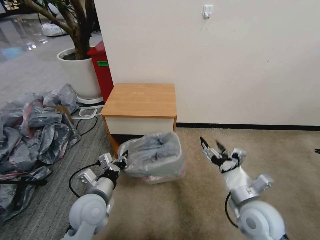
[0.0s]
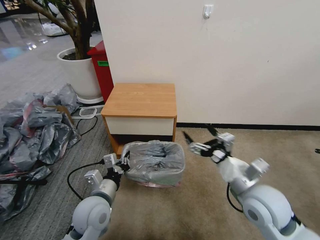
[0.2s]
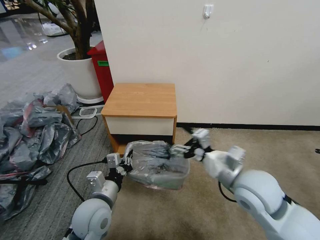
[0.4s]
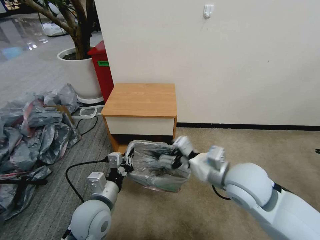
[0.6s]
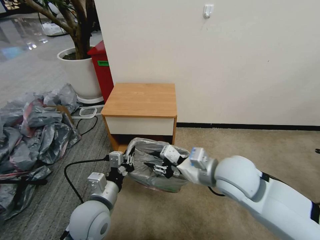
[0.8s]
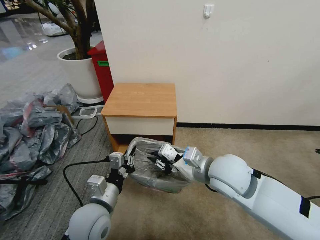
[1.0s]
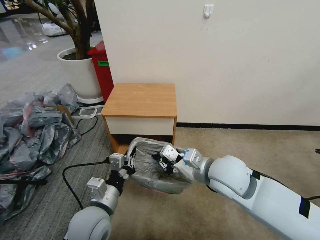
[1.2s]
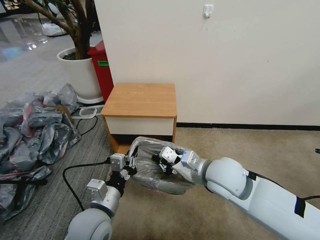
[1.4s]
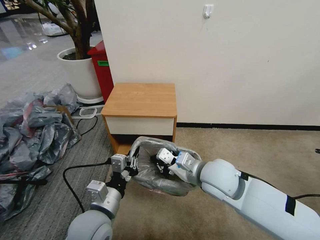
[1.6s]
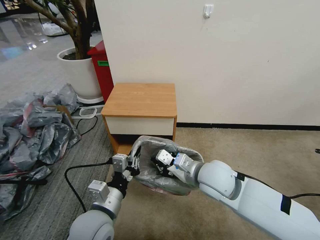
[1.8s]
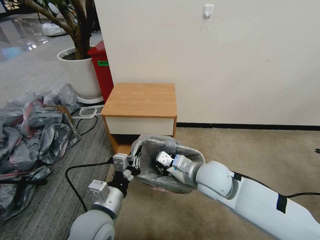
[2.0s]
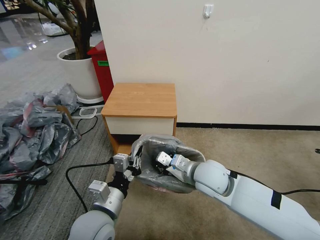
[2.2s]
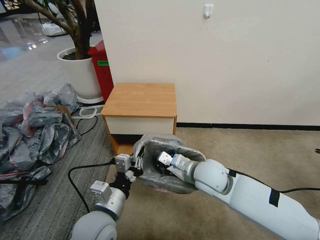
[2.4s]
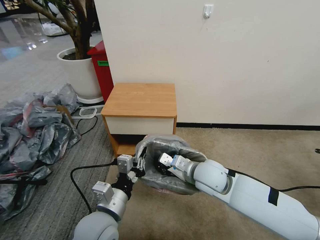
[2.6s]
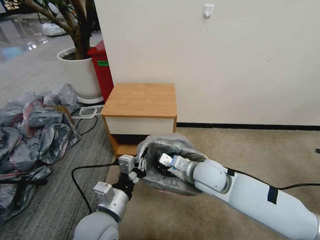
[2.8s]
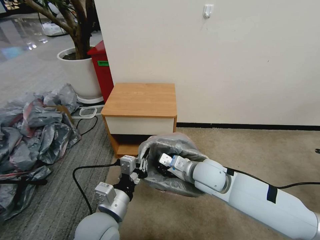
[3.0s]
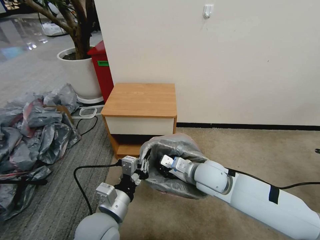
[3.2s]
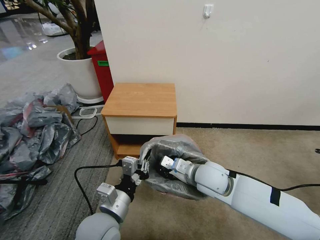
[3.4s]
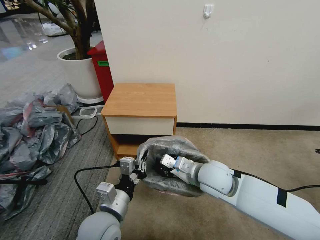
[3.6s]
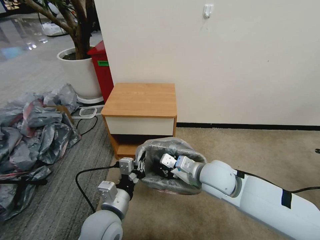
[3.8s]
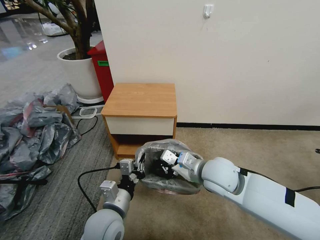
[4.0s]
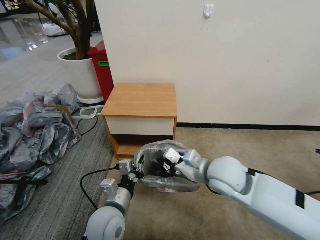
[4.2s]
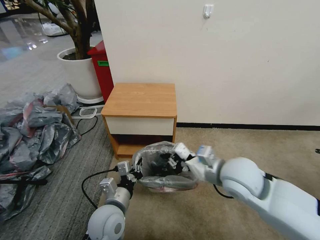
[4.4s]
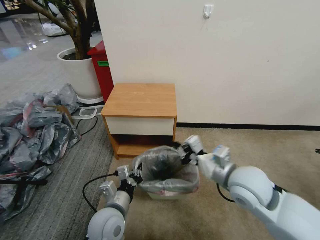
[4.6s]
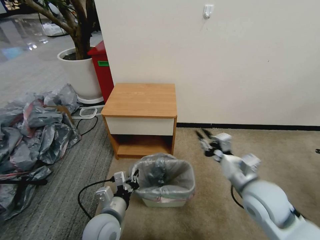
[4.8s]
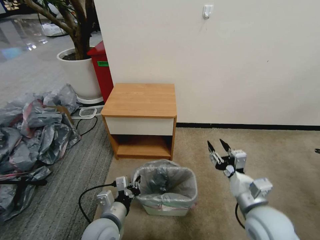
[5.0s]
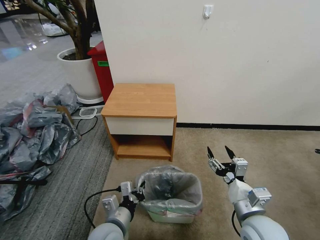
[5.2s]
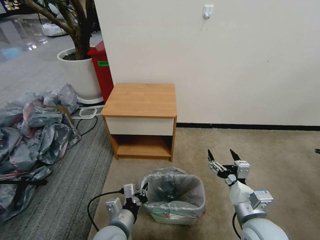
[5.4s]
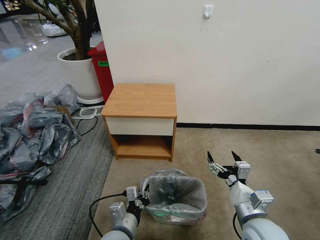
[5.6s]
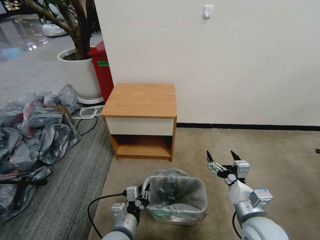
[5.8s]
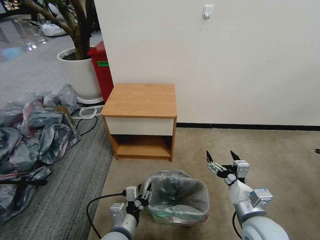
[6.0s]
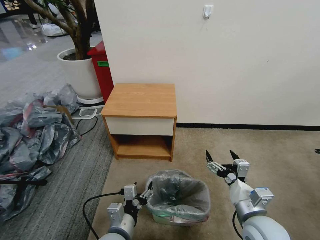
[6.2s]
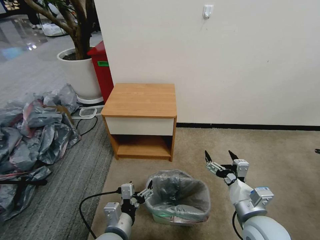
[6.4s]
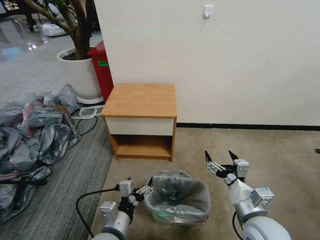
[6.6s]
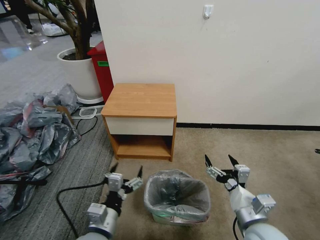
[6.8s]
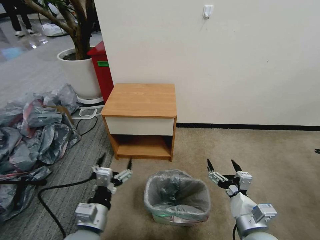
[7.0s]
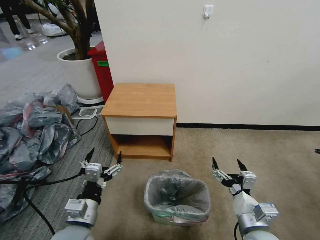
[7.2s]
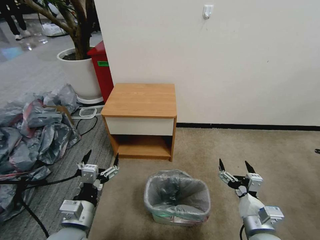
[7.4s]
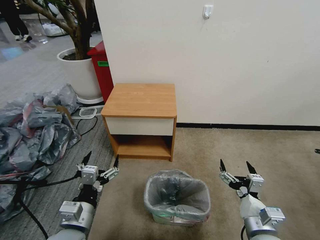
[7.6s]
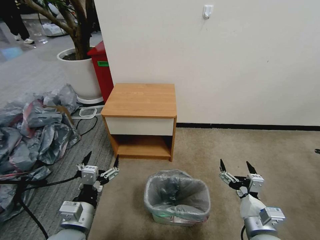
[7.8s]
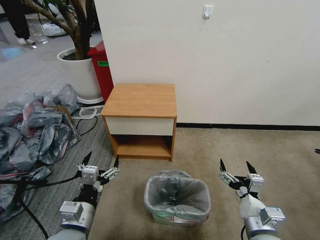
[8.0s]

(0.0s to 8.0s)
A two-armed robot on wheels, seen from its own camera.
Task of the whole recording: Pick up the garbage bag from the table and place it over the trash can.
0.0s - 1.6s: The left gripper heads backward, covering about 5 cm, while the right gripper heads to the left, forward and upward, covering approximately 15 cm, and closes.
1.6s - 3.2s: The right gripper is displaced downward by some 5 cm.
3.2s - 4.8s: The right gripper moves to the right and backward, roughly 15 cm. The left gripper heads downward, covering roughly 5 cm.
4.8s - 6.4s: The right gripper travels backward and downward by about 10 cm, and opens up, while the left gripper moves roughly 5 cm, and opens.
6.4s - 8.0s: The right gripper changes place by about 5 cm. The left gripper is displaced to the left and upward by about 10 cm.

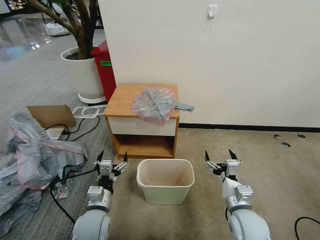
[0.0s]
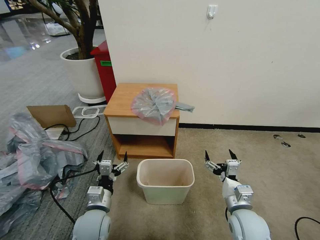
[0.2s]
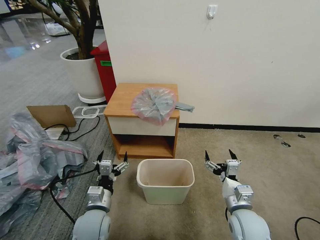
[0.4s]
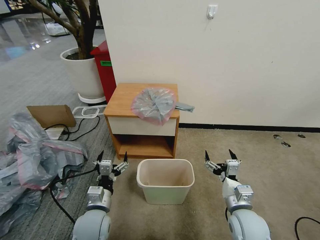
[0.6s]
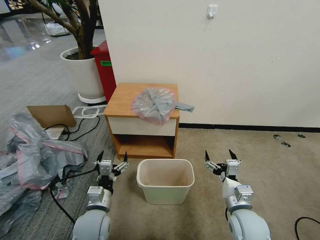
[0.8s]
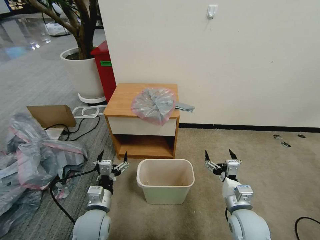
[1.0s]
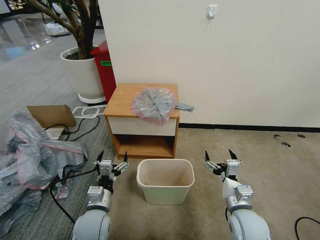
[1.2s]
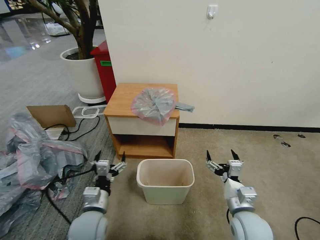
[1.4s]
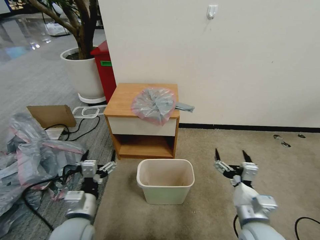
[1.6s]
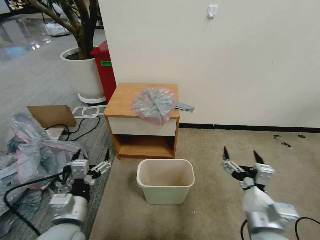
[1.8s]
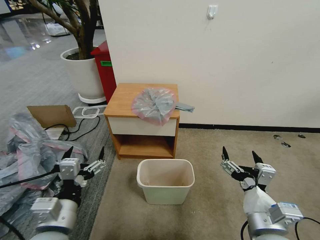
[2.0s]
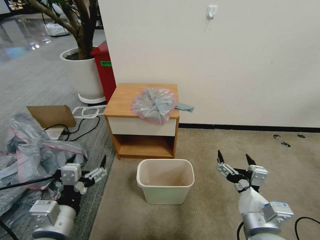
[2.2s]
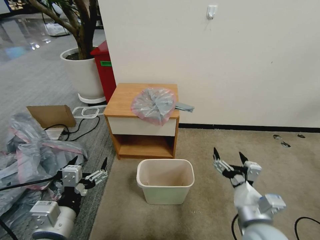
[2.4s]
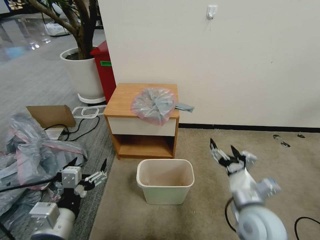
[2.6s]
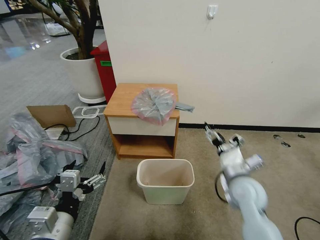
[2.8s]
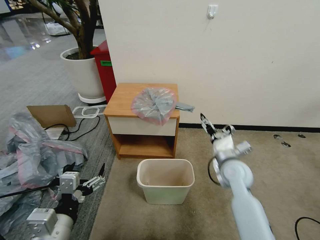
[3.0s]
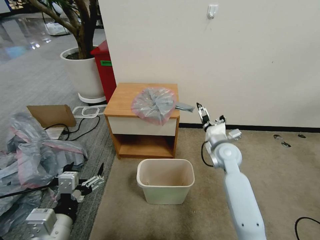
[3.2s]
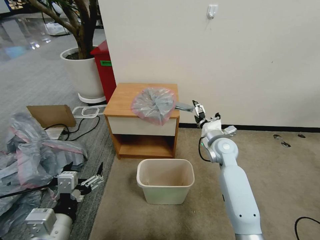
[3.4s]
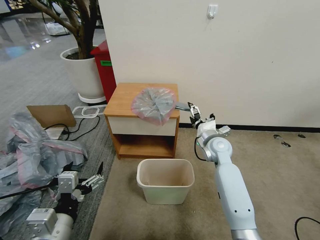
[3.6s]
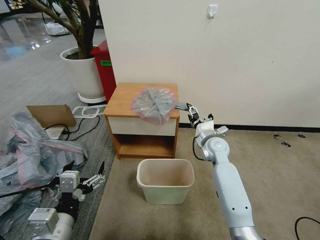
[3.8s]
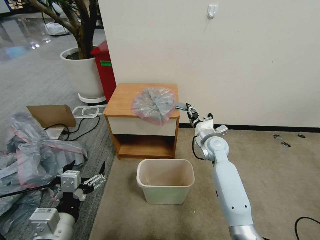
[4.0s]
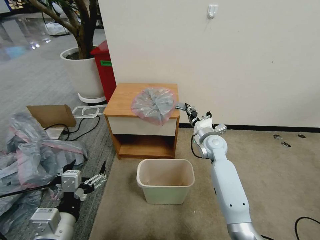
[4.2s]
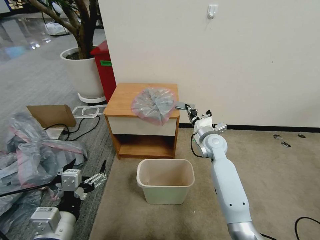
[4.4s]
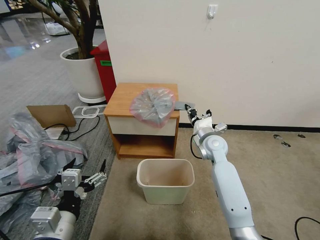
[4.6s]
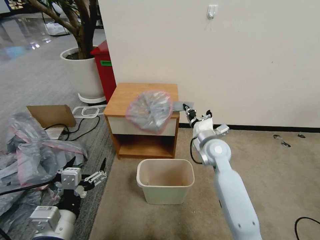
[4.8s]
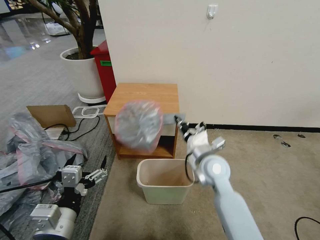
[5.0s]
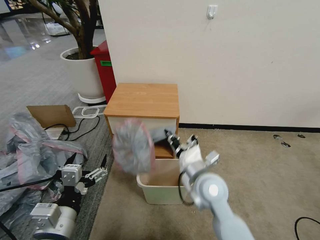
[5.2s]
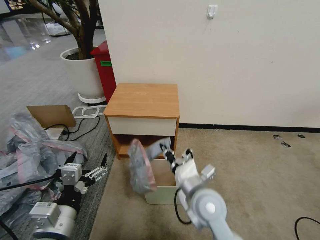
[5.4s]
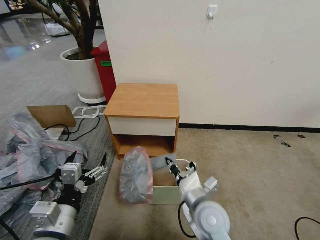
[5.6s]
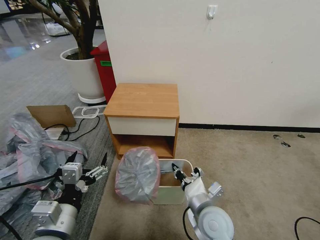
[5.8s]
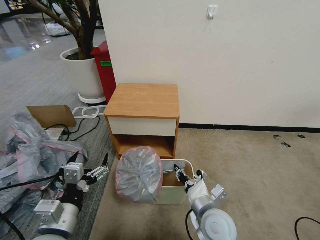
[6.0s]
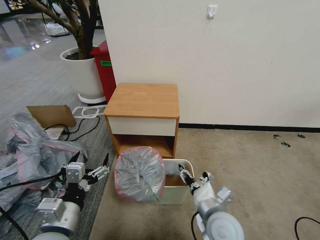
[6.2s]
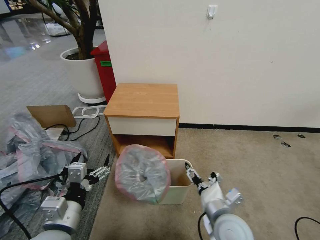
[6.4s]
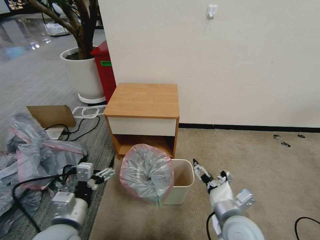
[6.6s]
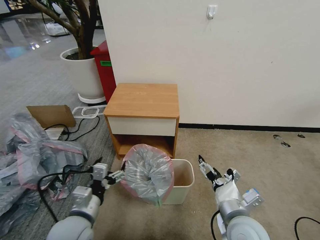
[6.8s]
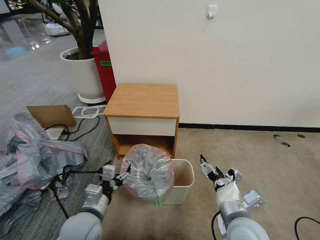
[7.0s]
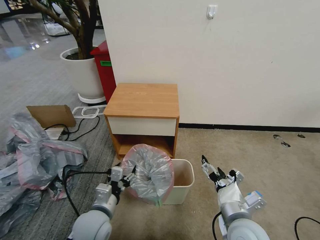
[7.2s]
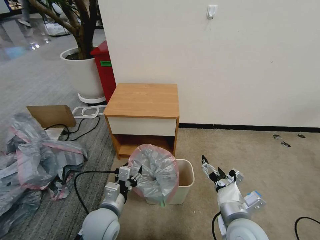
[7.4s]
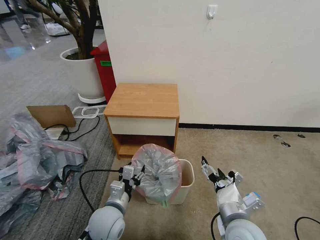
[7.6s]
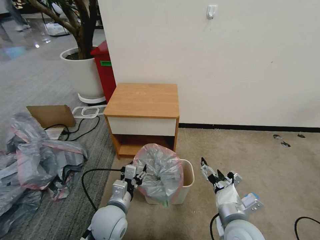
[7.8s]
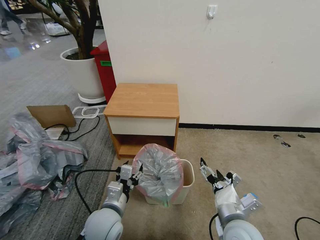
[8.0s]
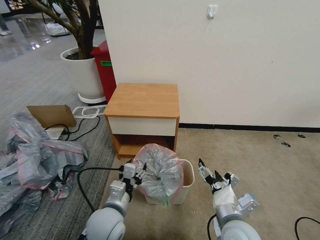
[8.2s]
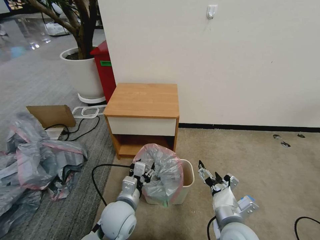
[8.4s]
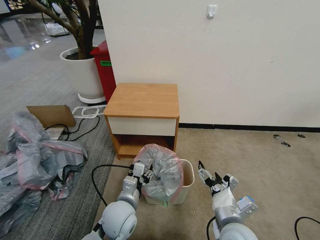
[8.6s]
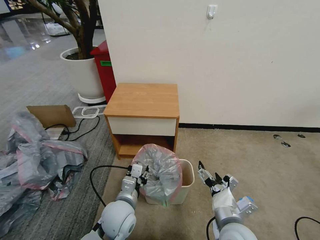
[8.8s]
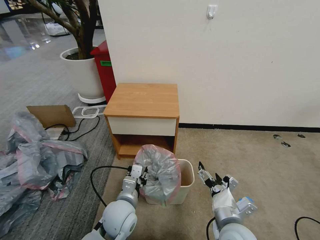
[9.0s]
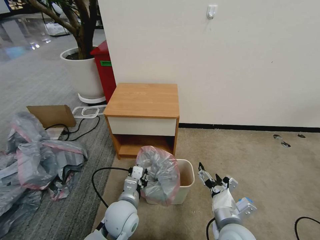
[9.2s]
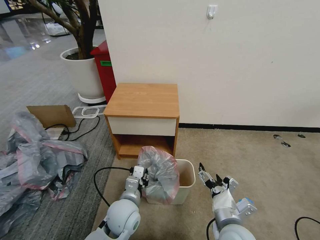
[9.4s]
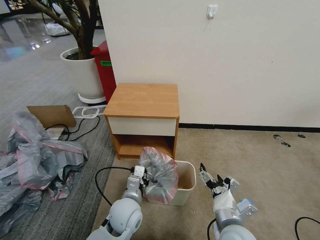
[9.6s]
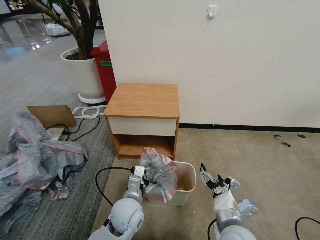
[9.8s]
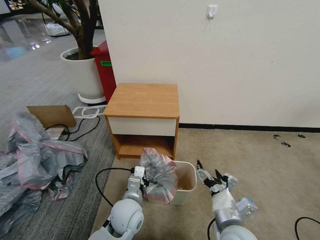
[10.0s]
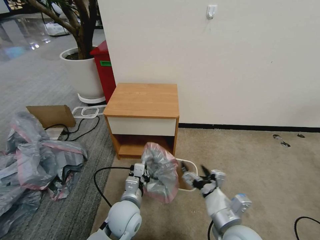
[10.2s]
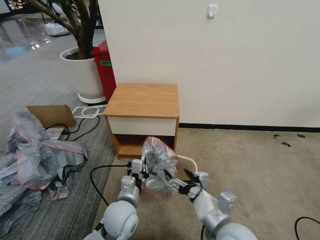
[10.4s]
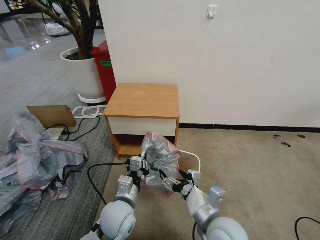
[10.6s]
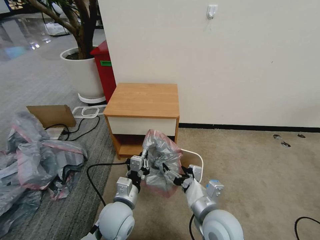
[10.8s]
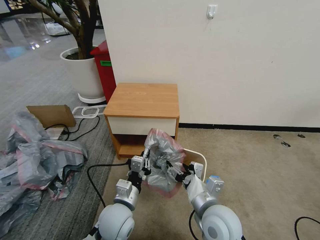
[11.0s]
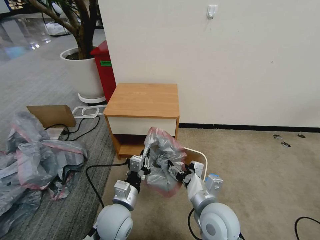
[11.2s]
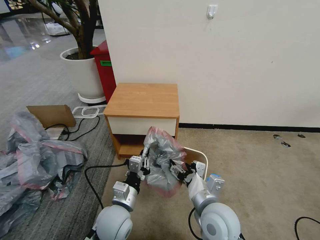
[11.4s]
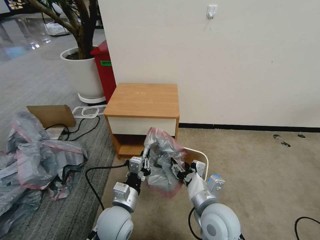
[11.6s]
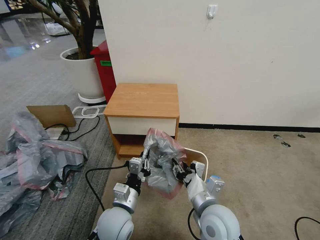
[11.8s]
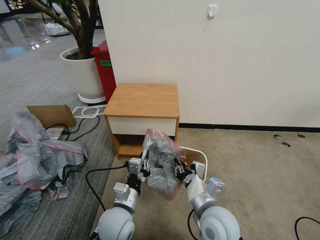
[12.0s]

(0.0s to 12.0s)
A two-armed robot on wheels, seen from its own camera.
Task of the whole recording: Pick up the garbage bag from the table and place it over the trash can.
1.6s - 3.0s: The right gripper travels forward by approximately 20 cm. The left gripper goes roughly 10 cm upward and backward.
3.0s - 4.4s: The right gripper shifts roughly 10 cm forward, and closes.
4.4s - 6.0s: The right gripper moves backward, about 25 cm.
6.0s - 7.6s: The right gripper shifts about 5 cm to the right, and opens up. The left gripper shifts roughly 15 cm downward, forward and to the right, and closes up.
7.6s - 9.0s: The grippers move only a little.
9.0s - 10.4s: The left gripper closes up.
10.4s - 12.0s: The right gripper ends up some 5 cm from where it was, and closes.

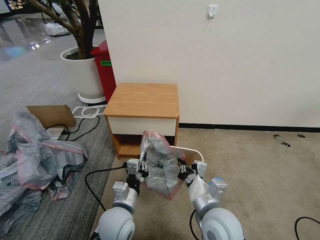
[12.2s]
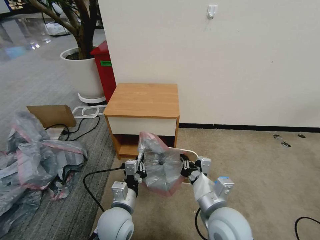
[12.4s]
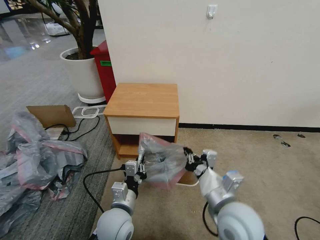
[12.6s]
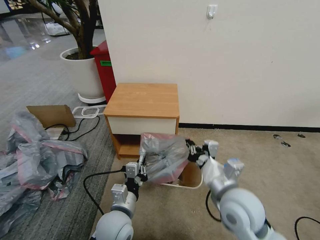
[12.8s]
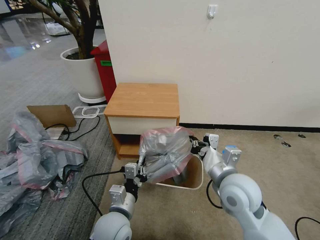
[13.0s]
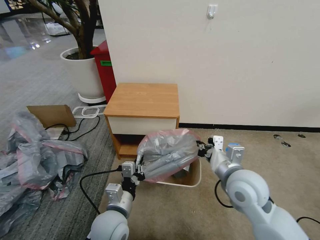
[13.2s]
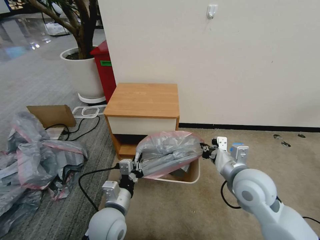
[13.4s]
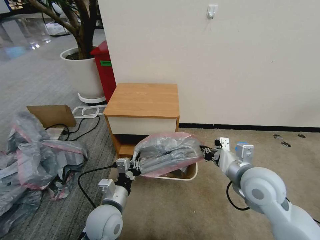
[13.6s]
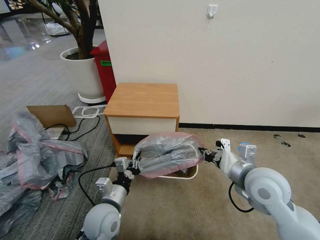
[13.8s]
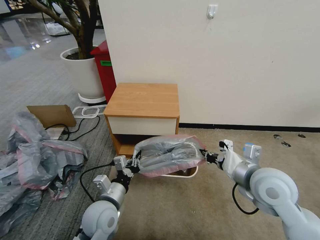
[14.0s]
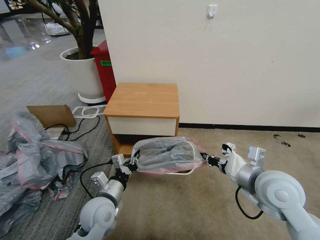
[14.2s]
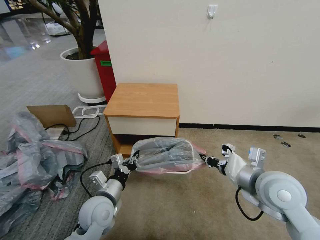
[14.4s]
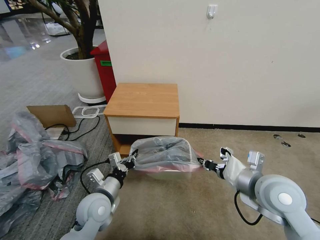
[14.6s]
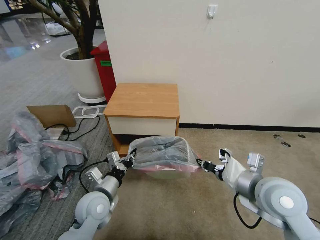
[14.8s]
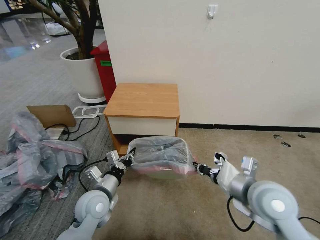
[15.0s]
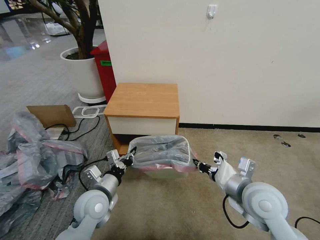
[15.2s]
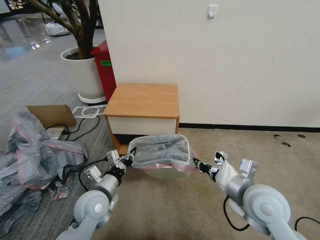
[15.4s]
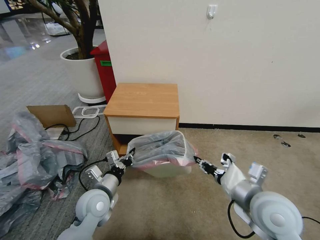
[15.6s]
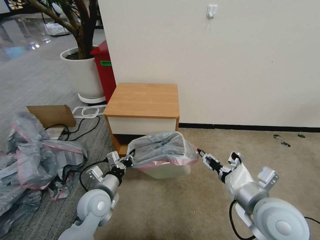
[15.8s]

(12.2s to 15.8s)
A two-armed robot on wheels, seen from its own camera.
Task of the whole recording: Pick up the garbage bag from the table and place it over the trash can.
12.2s - 14.0s: The left gripper is displaced to the left by some 5 cm. Meanwhile the right gripper shifts approximately 15 cm to the right, upward and forward.
14.0s - 15.8s: The right gripper is displaced backward by approximately 5 cm, and opens.
